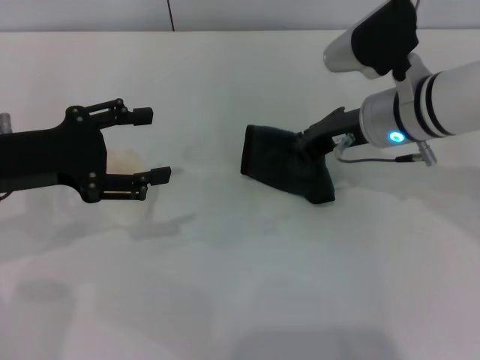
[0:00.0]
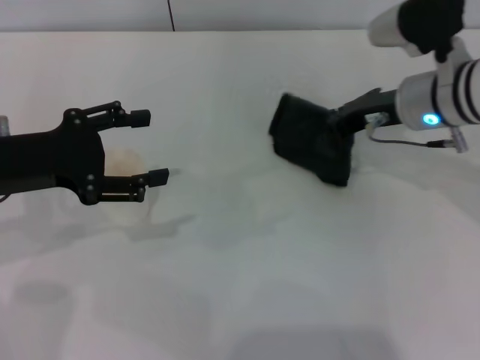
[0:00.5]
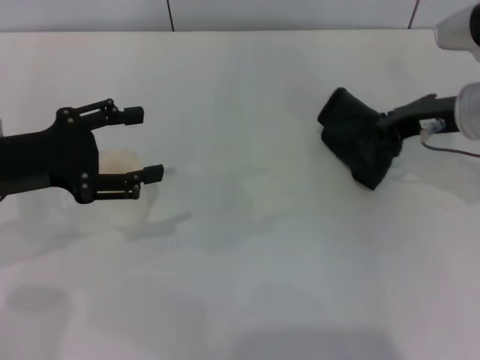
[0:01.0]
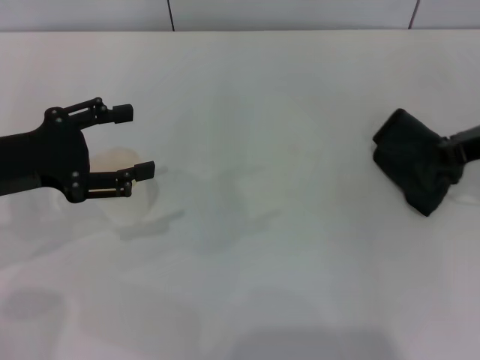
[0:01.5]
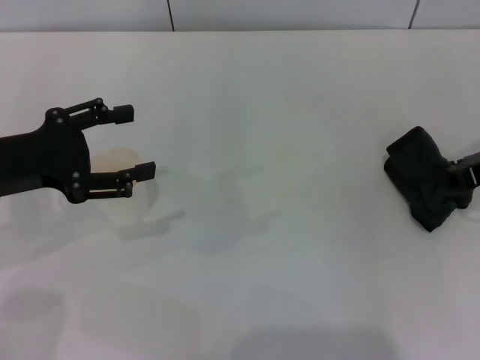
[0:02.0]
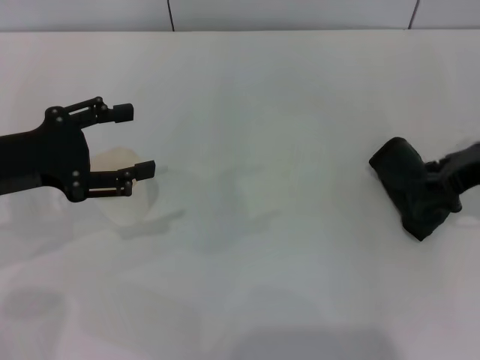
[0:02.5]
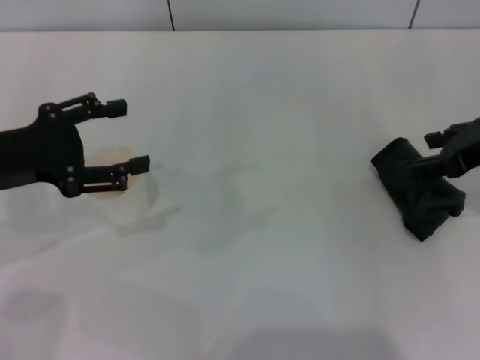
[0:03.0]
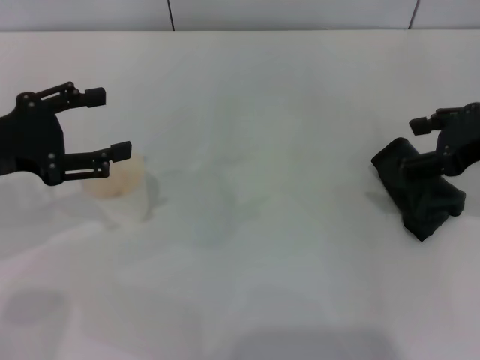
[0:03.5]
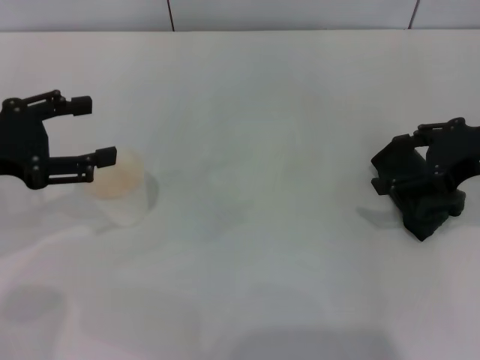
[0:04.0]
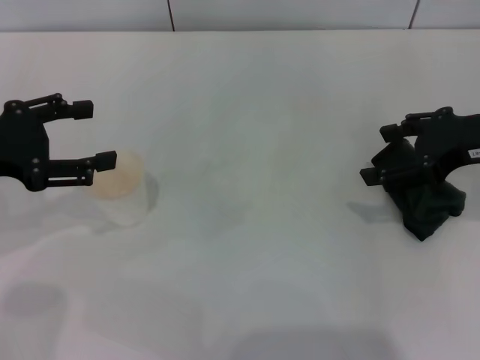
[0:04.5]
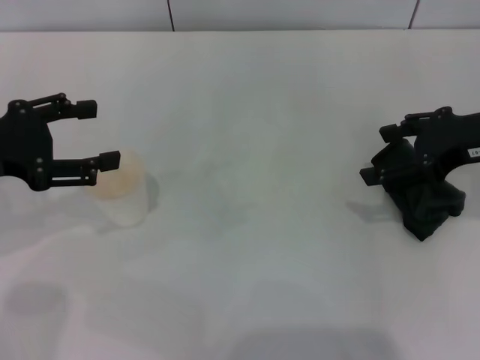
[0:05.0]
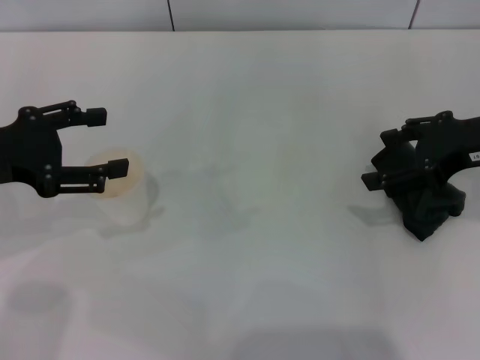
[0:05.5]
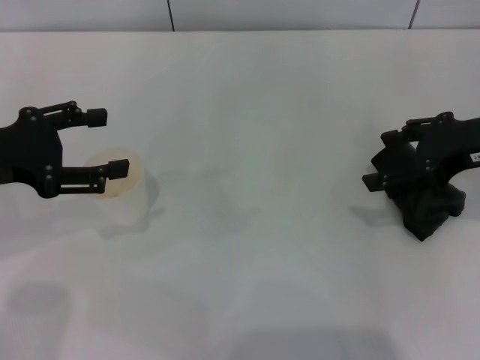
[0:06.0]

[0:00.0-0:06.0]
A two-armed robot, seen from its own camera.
Step, 0:00.0 to 0:03.5: Place the rag on the table with the right gripper.
0:00.0 to 0:02.0: The right gripper goes some 15 cm to the right.
0:02.0 to 0:04.0: The right gripper opens.
0:04.0 to 0:06.0: Both grippers stay put.
